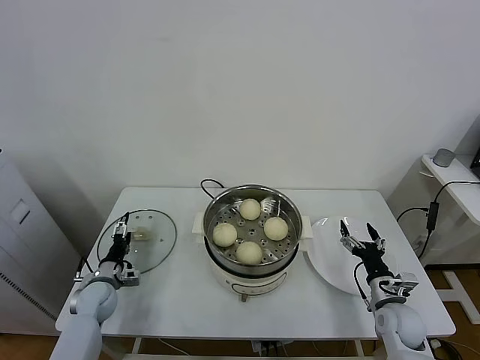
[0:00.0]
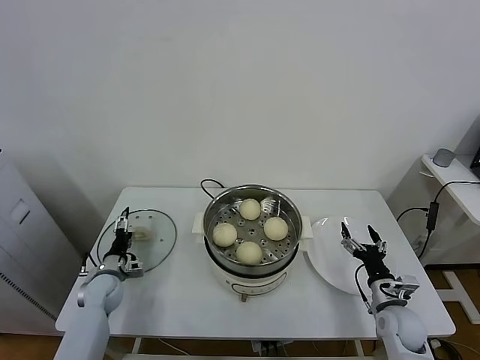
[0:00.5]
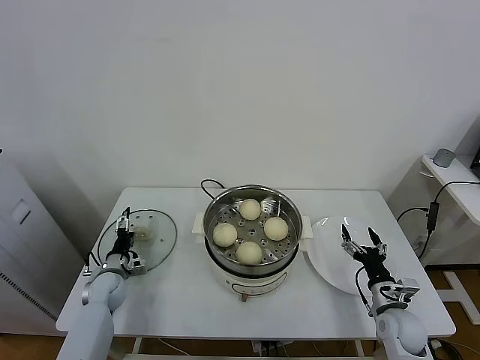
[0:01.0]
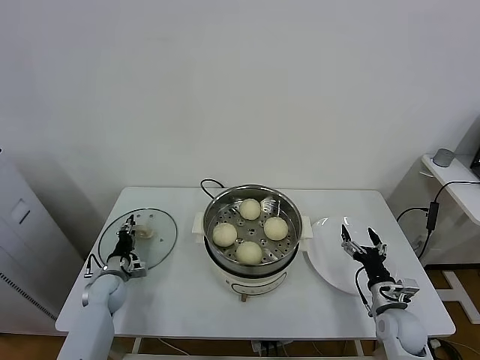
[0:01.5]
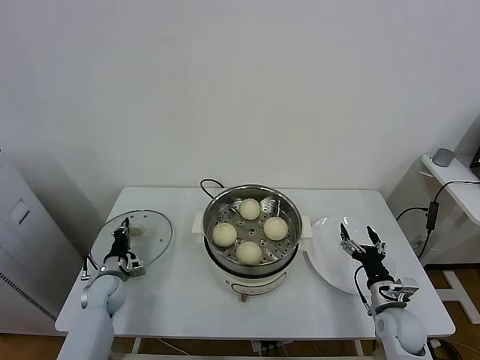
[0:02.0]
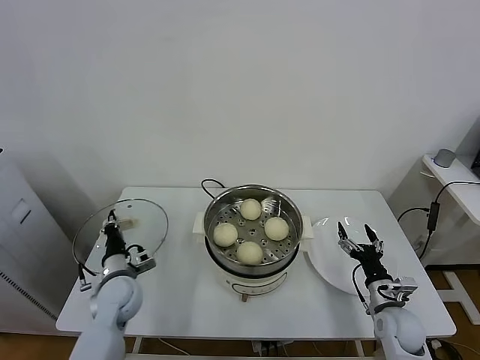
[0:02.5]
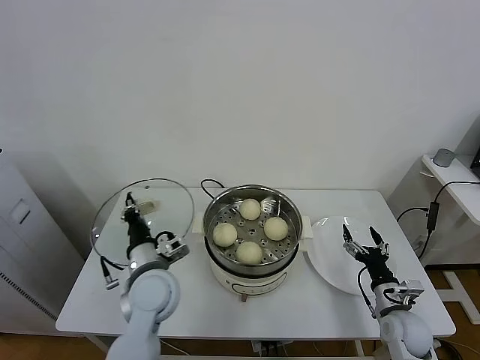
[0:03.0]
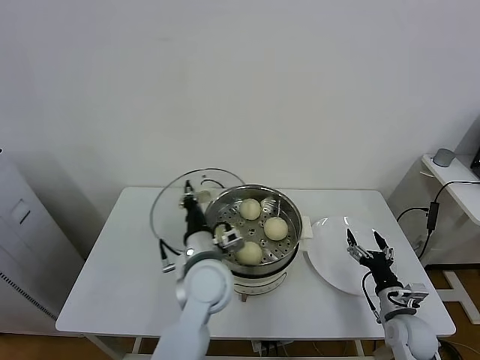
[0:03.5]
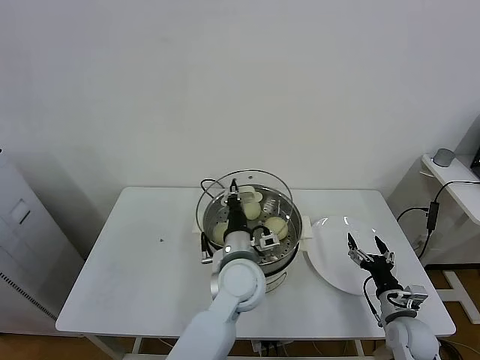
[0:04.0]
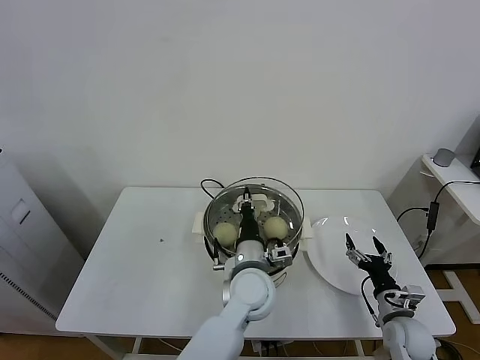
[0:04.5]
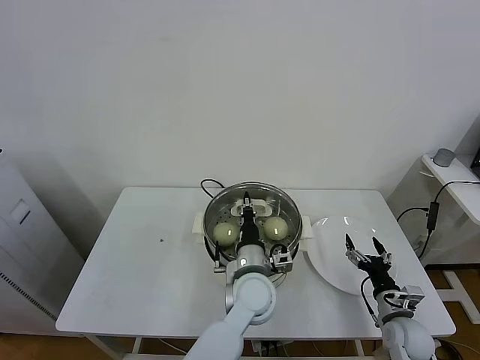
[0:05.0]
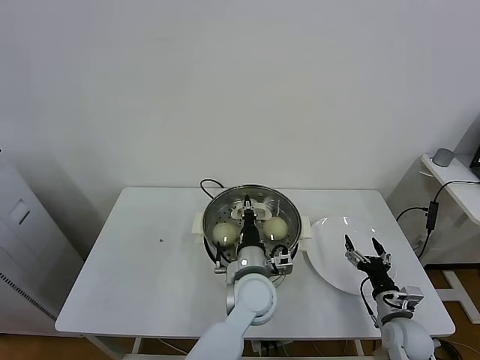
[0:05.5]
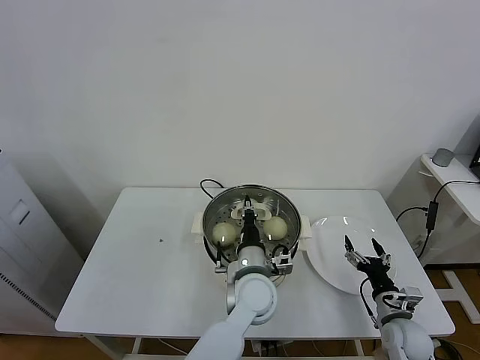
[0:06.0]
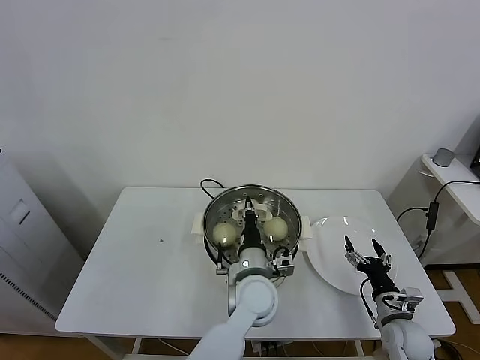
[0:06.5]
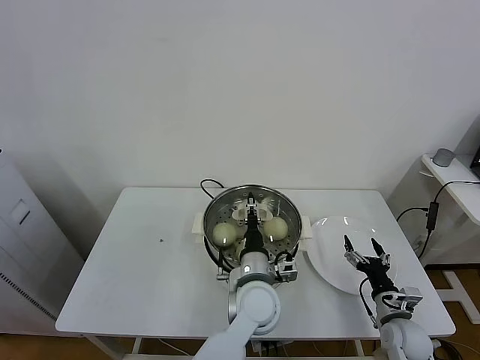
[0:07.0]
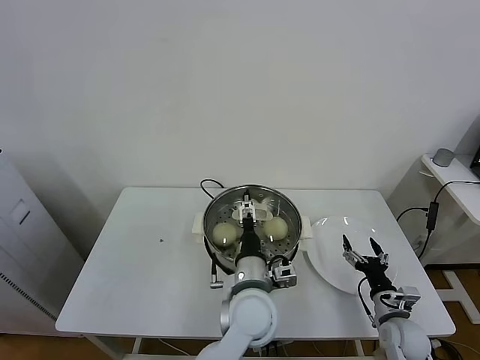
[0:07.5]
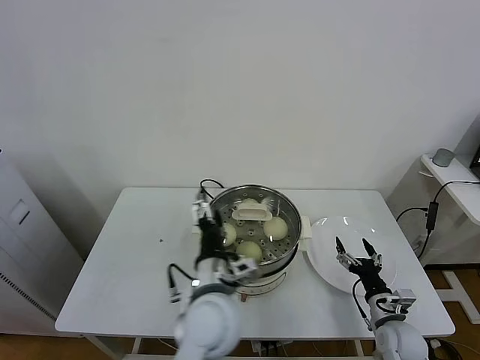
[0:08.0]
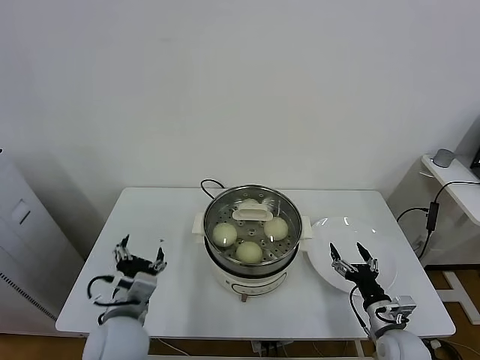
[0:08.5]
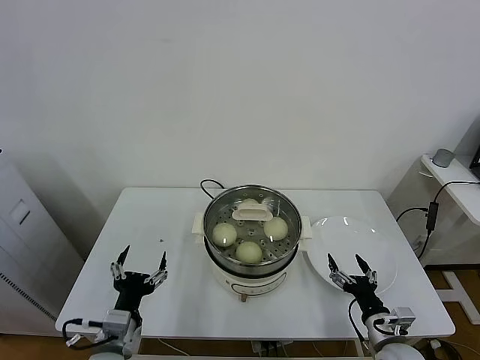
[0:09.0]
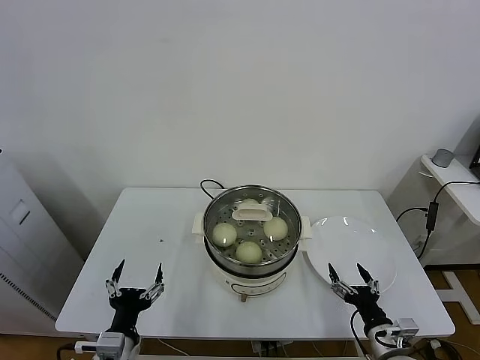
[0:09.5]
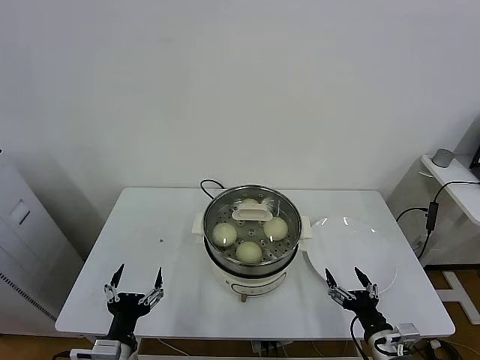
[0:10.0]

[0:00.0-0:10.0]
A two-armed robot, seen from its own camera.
Task of the whole recording: take steamed baozi put them in steamer.
Step, 0:00.0 to 0:02.0: Grasp the pot lid with left gripper.
Step, 0:02.5 to 0:06.5: Place the pot lid on the steamer with left gripper.
0:00.0 to 0:02.0: The left gripper closes its fingers.
0:02.0 to 0:04.0: The left gripper is displaced to the right and upward by approximately 40 cm.
0:04.0 to 0:06.0: The left gripper shifts by roughly 5 cm.
0:06.0 to 0:08.0: The left gripper travels backward, upward and to the left by approximately 10 cm, and opens up.
0:08.0 to 0:10.0: The left gripper heads to the left, downward and backward, covering roughly 25 cm; the right gripper heads backward, covering some 10 cm.
